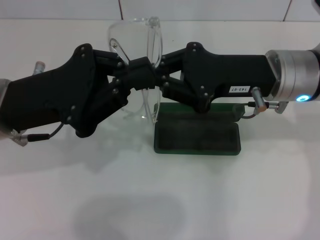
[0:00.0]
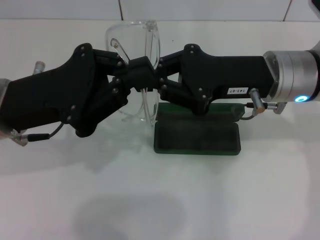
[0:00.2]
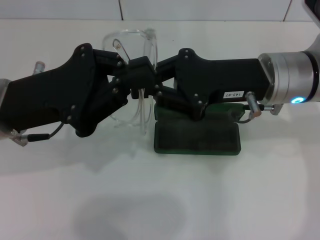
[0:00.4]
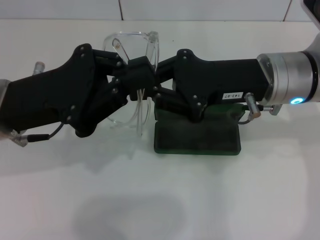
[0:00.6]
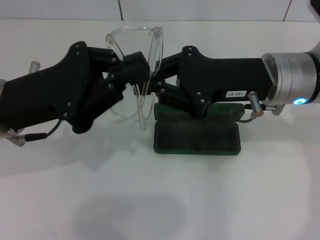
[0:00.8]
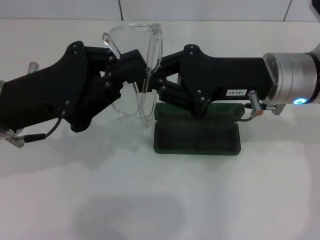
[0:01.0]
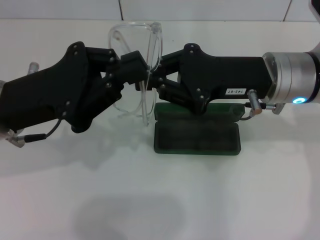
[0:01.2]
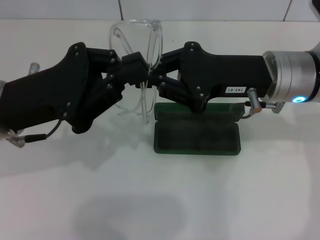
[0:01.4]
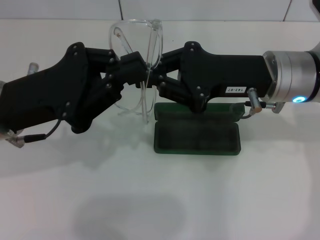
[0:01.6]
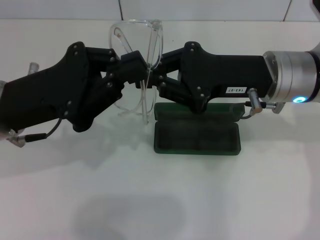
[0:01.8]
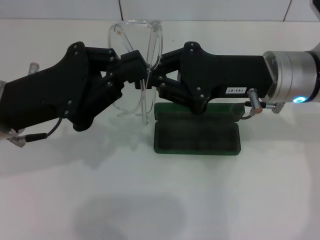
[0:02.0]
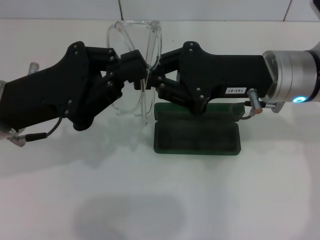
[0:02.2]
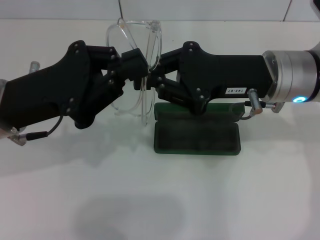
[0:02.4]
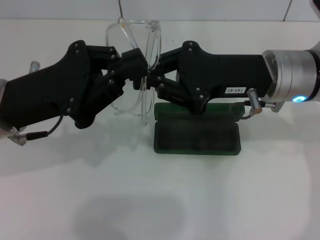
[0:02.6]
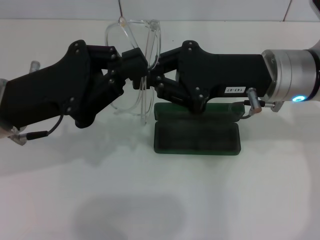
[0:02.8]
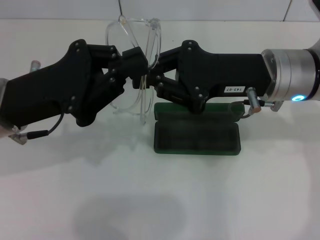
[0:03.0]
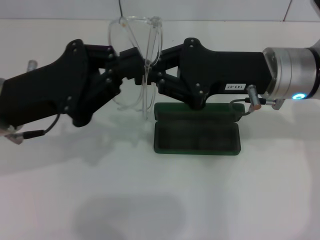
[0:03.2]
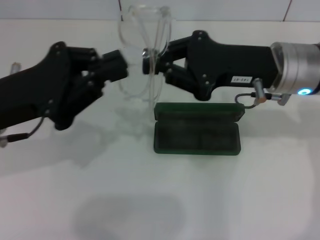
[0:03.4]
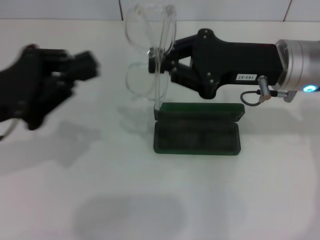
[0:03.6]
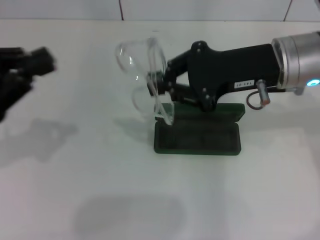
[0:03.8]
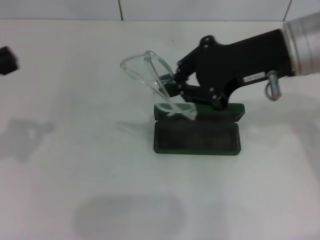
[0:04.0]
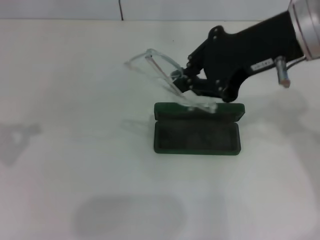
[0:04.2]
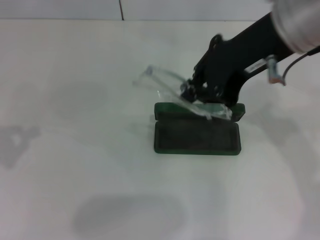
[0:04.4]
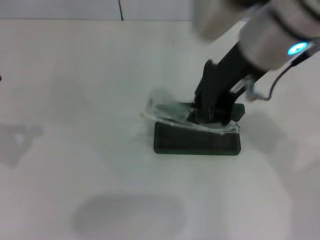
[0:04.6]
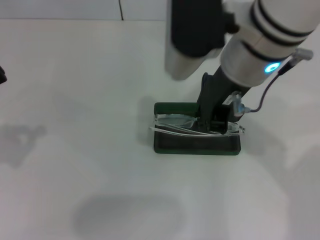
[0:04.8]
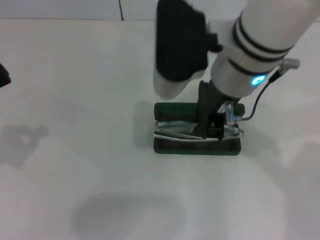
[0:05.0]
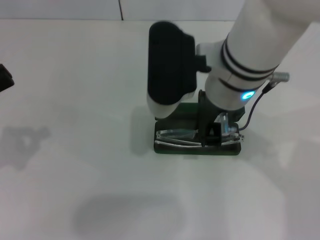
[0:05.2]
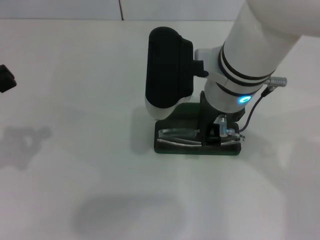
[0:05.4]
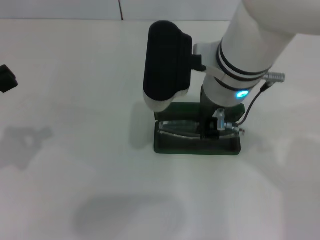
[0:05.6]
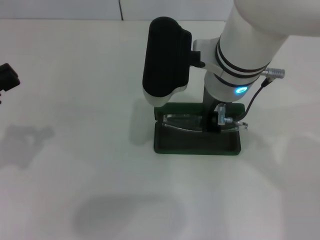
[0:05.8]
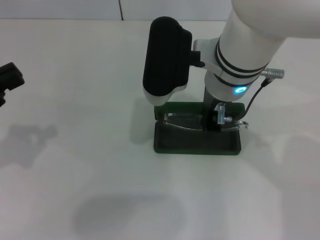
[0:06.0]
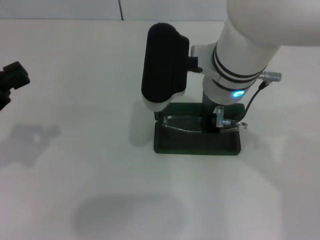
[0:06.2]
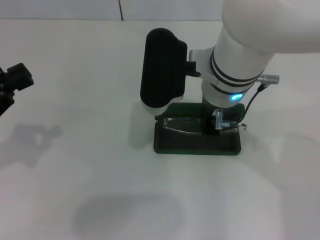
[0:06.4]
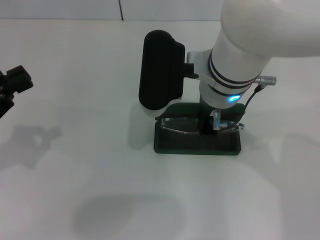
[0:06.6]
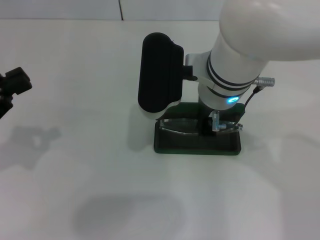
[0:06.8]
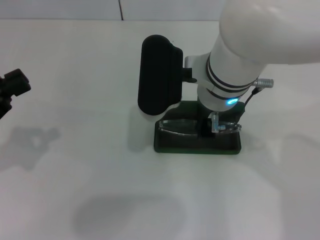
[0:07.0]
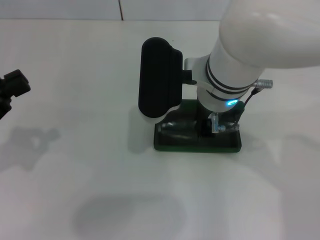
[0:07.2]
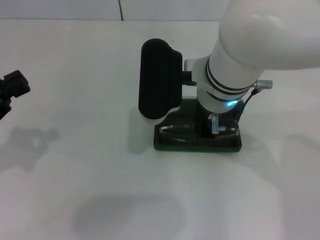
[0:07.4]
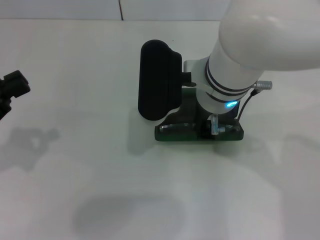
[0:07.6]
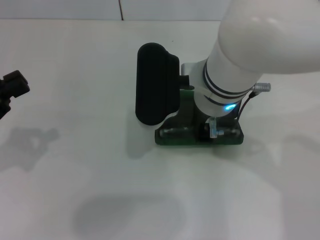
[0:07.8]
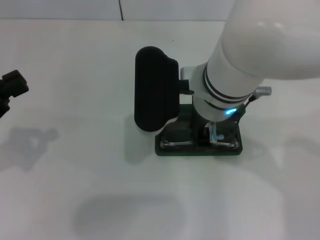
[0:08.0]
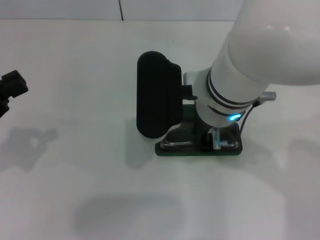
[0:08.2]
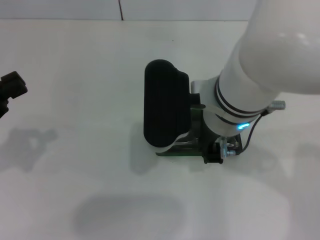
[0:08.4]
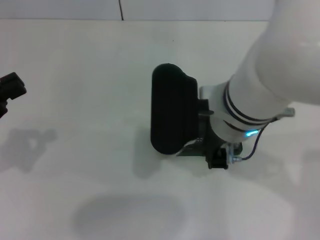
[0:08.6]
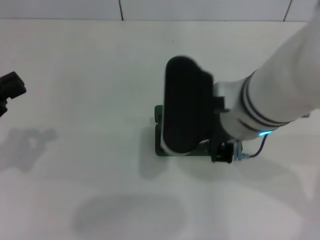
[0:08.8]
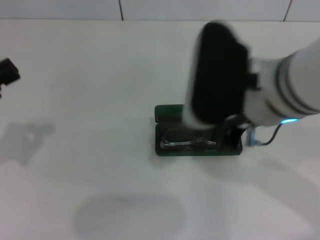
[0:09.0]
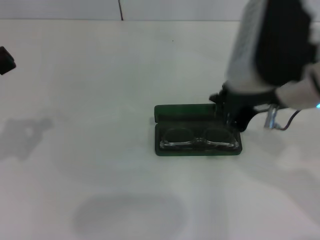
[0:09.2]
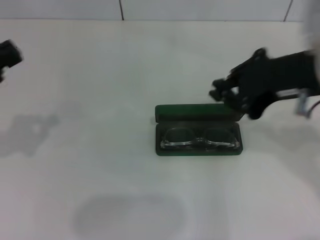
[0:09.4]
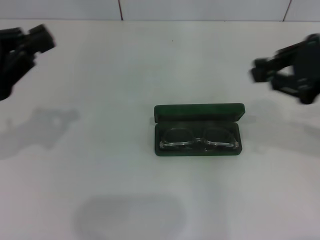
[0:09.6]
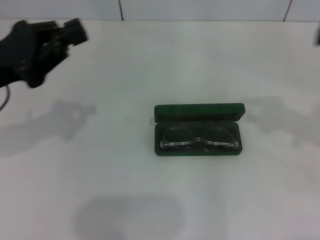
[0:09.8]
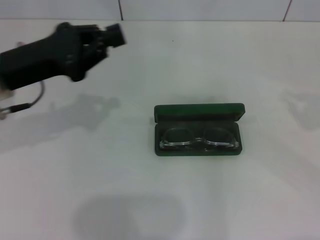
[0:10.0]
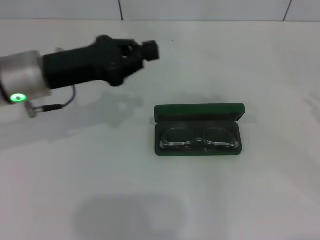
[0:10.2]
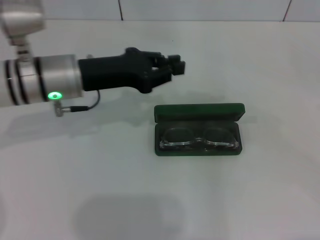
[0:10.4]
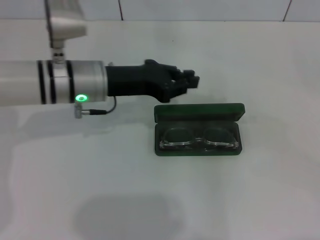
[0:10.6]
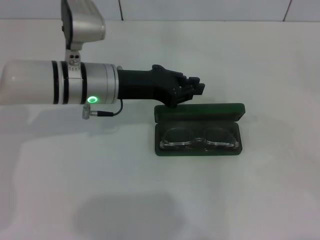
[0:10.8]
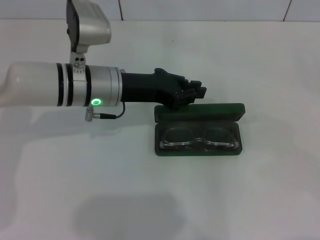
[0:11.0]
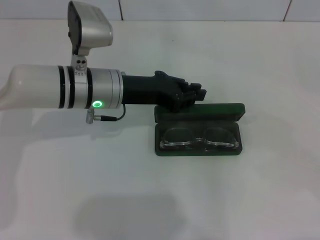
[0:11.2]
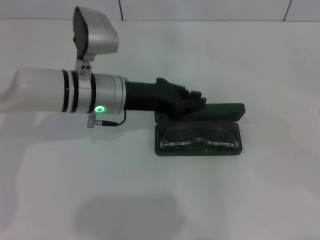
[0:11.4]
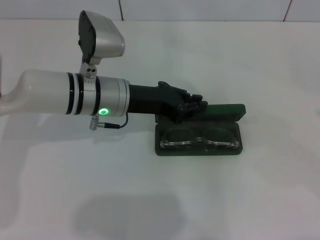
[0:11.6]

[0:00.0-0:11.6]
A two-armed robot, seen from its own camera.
Step, 0:00.0 to 0:03.2: Fold the frame with your left hand.
Step, 0:03.4 to 0:08.2: Put the glasses into the case with your right hand.
0:00.0 to 0:02.8: The two grippers keep their place.
0:02.8 to 0:04.4: The left gripper travels to the left by some 15 cm. Meanwhile the right gripper shifts about 10 cm upward.
0:04.4 to 0:05.8: The right gripper moves downward and to the left, about 10 cm.
0:05.8 to 0:07.2: The grippers move only a little.
0:07.2 to 0:08.8: The right gripper goes some 5 cm backward.
0:08.8 to 0:10.2: The right gripper goes roughly 35 cm to the right; the left gripper moves to the right and forward, roughly 20 cm.
0:10.2 to 0:11.6: The left gripper moves to the right and downward, roughly 10 cm.

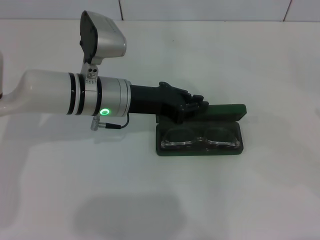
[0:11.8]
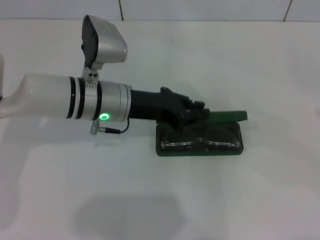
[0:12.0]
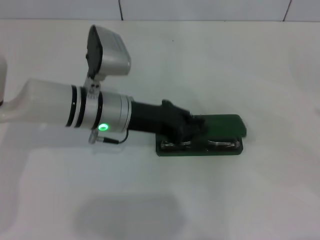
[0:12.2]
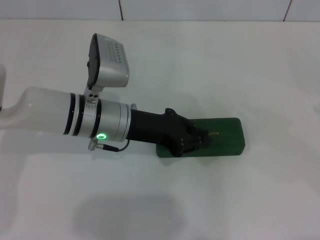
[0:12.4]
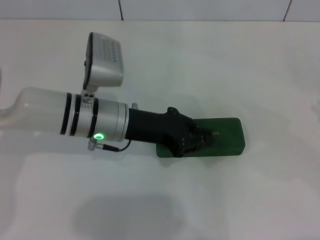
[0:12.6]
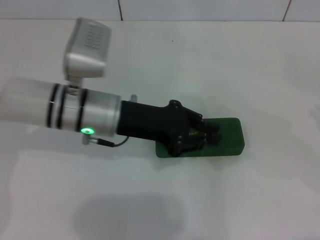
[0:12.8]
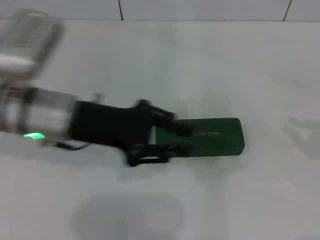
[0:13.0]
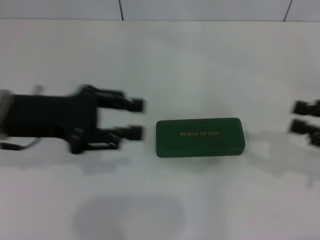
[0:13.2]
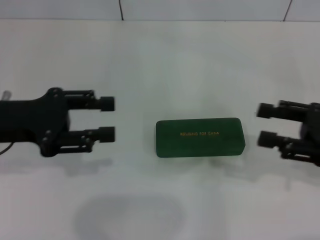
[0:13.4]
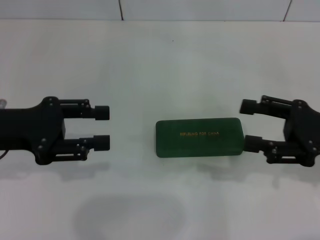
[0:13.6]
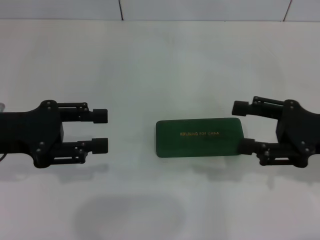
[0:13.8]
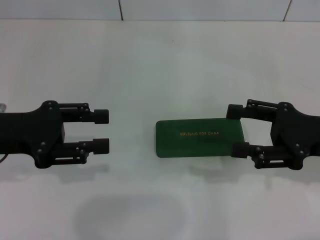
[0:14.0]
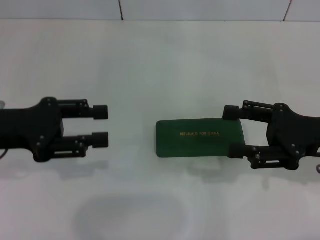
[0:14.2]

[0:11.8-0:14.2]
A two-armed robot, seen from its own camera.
0:11.8 to 0:13.0: The left gripper is displaced to the left and backward by roughly 10 cm.
0:13.0 to 0:14.2: Both grippers travel together to the left, roughly 10 cm. The right gripper opens up. Meanwhile the left gripper opens.

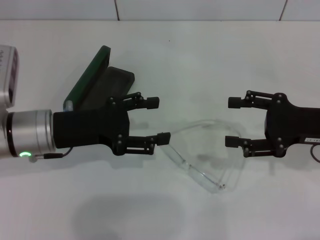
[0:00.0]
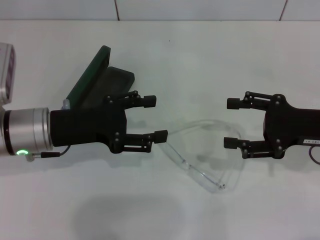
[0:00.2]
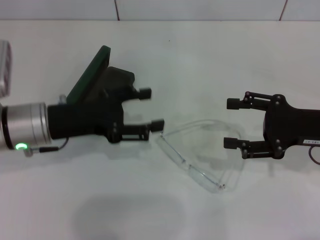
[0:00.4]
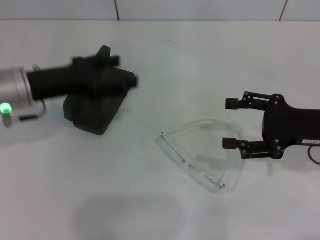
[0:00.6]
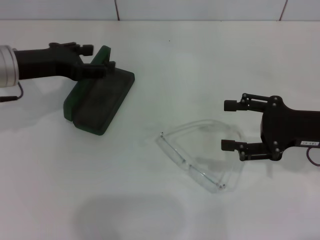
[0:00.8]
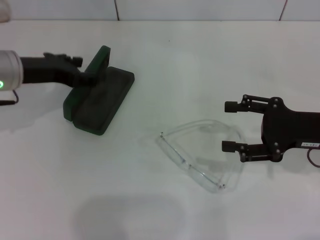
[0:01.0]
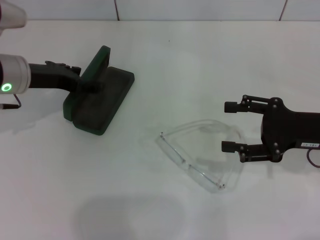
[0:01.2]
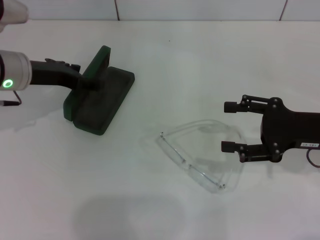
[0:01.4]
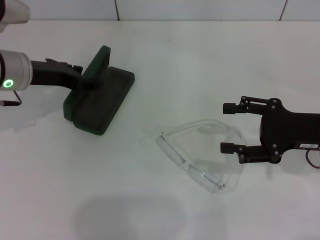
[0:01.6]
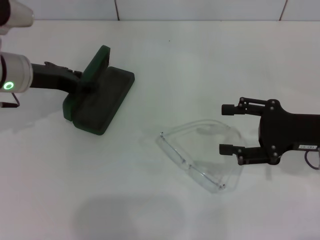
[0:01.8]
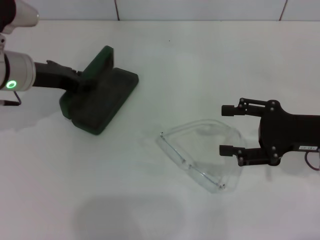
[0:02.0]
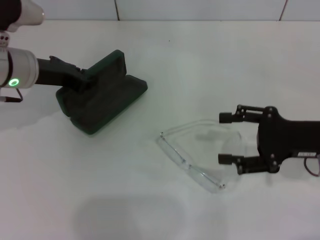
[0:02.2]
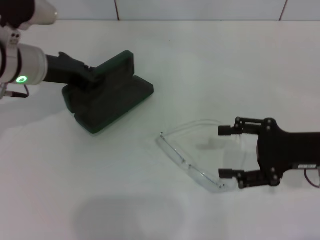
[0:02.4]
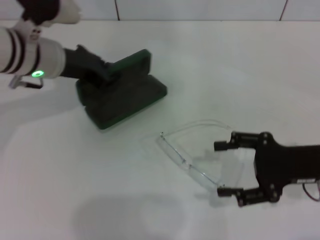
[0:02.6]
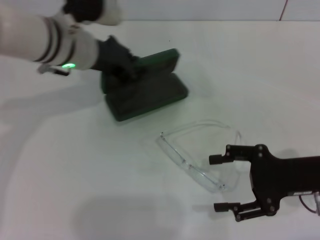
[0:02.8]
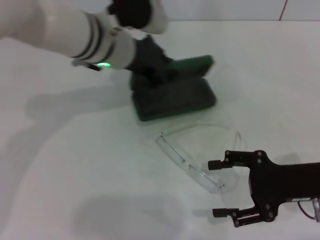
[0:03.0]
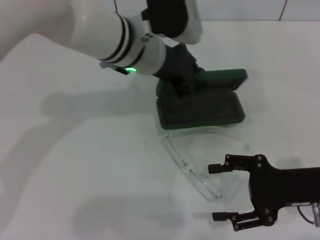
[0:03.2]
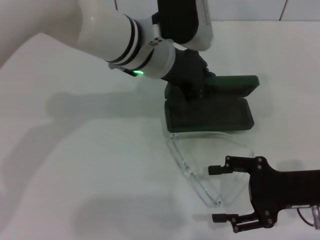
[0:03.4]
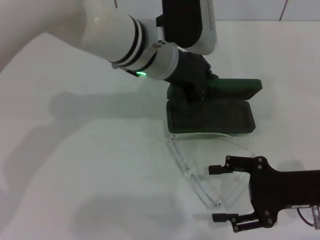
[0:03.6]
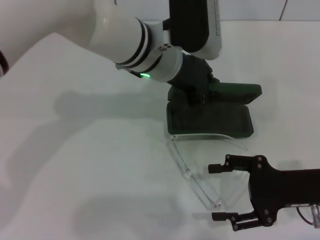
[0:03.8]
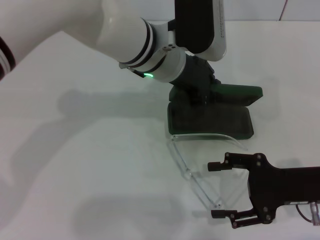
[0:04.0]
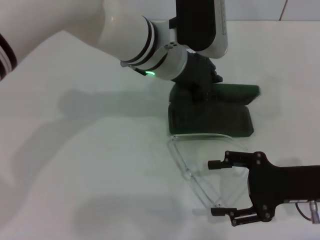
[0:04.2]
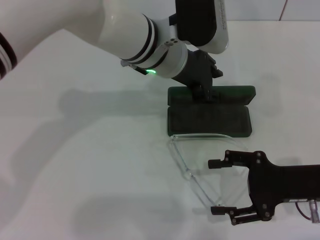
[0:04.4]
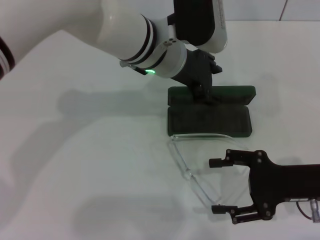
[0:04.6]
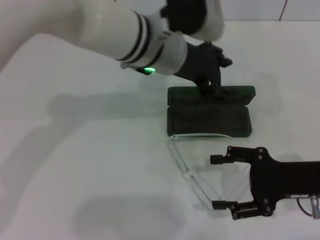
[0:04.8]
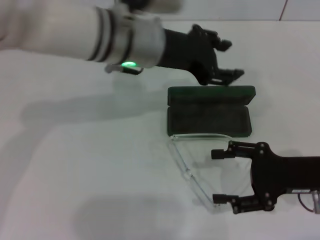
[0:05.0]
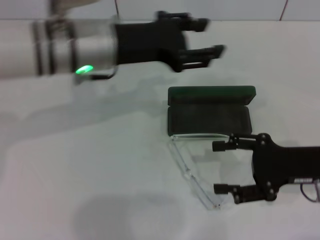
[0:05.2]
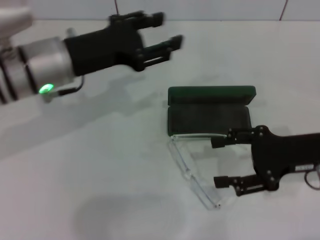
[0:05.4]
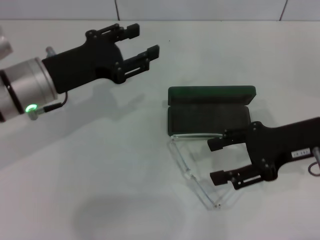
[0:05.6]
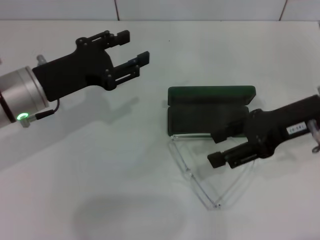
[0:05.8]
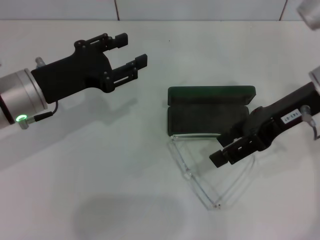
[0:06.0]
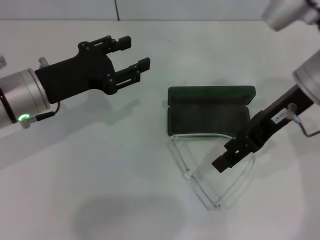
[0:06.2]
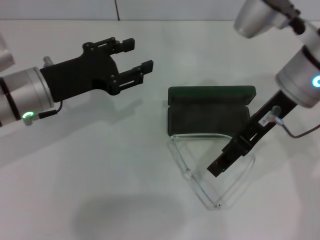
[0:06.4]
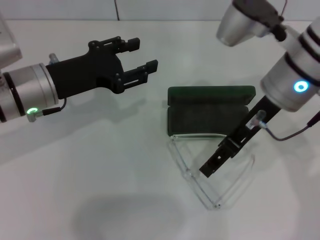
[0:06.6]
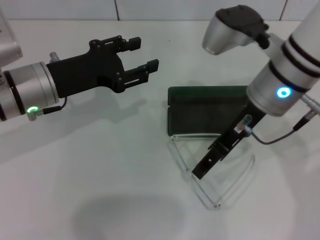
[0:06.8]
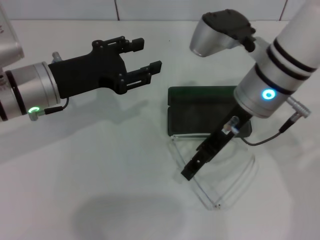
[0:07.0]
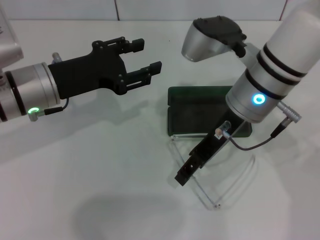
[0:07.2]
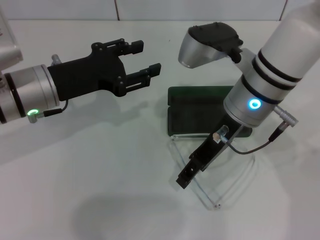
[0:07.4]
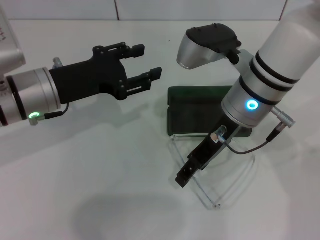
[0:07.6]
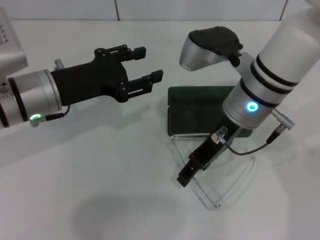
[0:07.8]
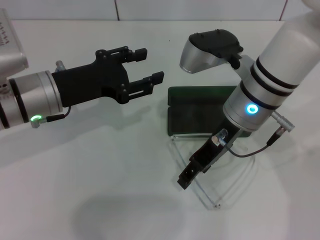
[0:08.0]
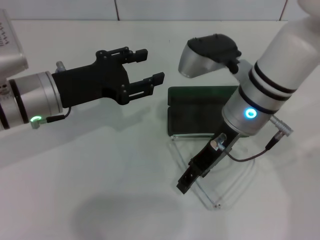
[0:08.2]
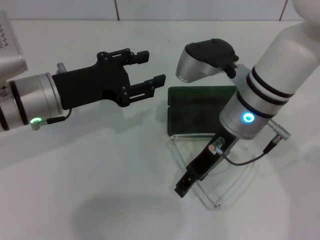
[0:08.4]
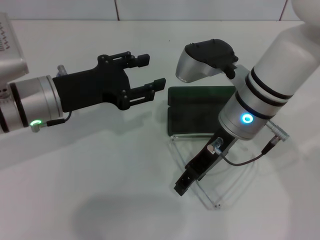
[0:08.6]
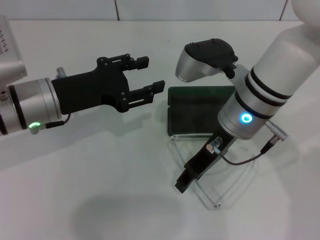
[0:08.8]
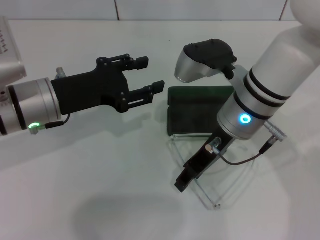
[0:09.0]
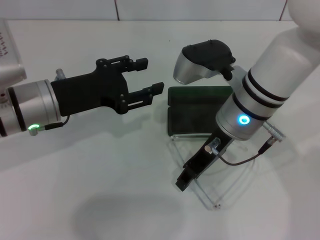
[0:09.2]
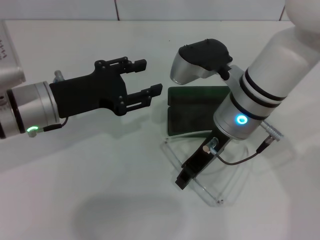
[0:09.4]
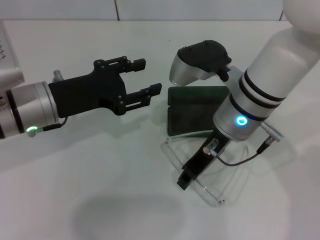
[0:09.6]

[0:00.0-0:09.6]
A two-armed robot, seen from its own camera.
Step, 0:00.0 to 0:02.2: Grab the glasses case with your left hand.
Step, 0:02.4 to 0:04.6: Place the glasses case in the center of the table with your left hand.
Step, 0:04.8 to 0:09.2: Grab the eyeglass frame with your right hand.
0:00.0 to 0:01.6: The left gripper travels forward by about 10 cm.
0:01.6 to 0:03.2: The right gripper ends up roughly 5 cm from where it was, while the left gripper shifts some 20 cm to the right, and closes up.
0:03.2 to 0:04.8: The left gripper opens up.
0:04.8 to 0:06.4: The right gripper shifts some 20 cm upward, to the left and forward. Meanwhile the left gripper moves to the left, about 20 cm.
0:06.4 to 0:08.0: The right gripper is displaced to the left and downward by some 10 cm.
0:08.0 to 0:09.6: The right gripper closes up.
